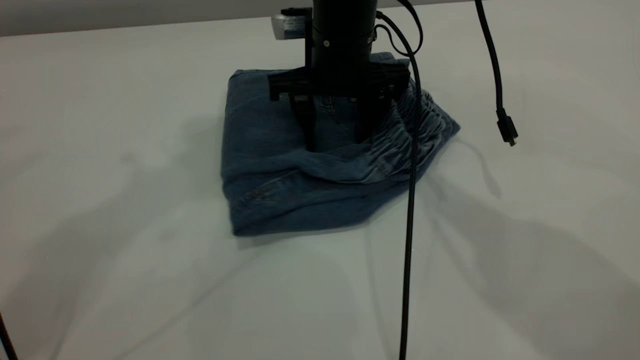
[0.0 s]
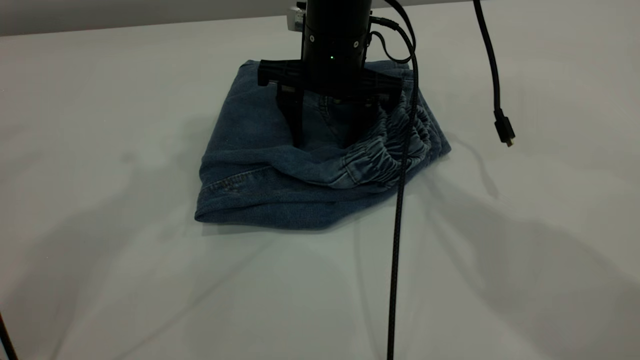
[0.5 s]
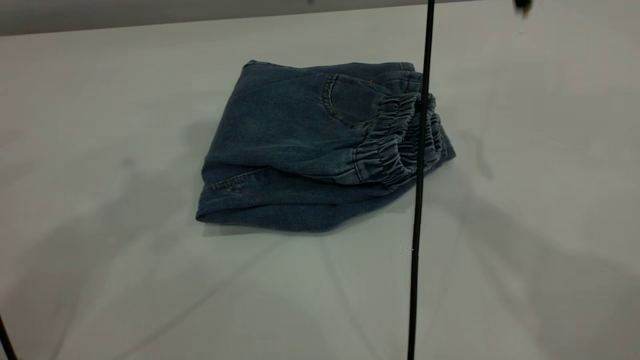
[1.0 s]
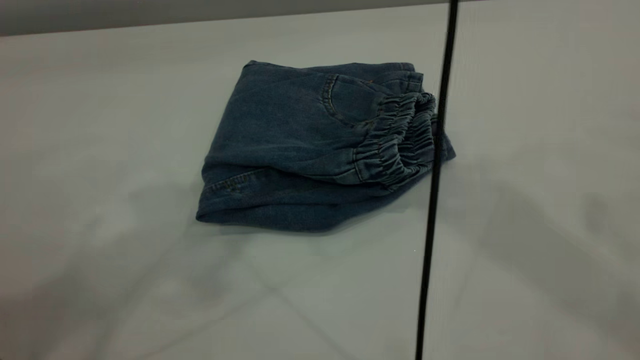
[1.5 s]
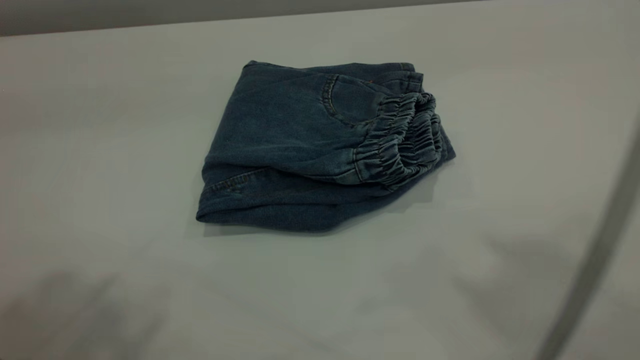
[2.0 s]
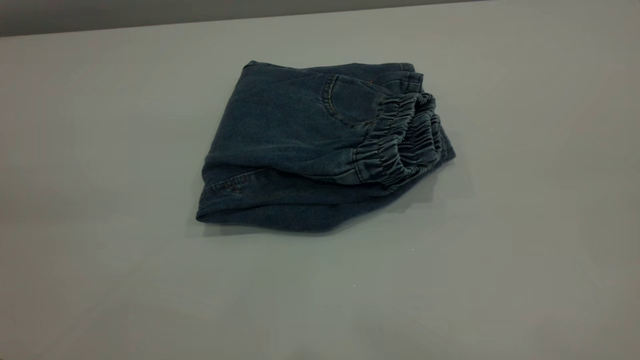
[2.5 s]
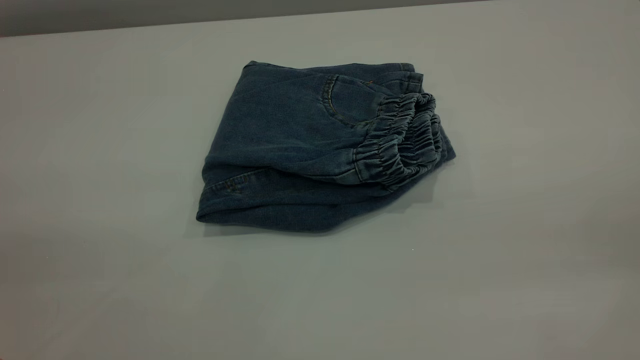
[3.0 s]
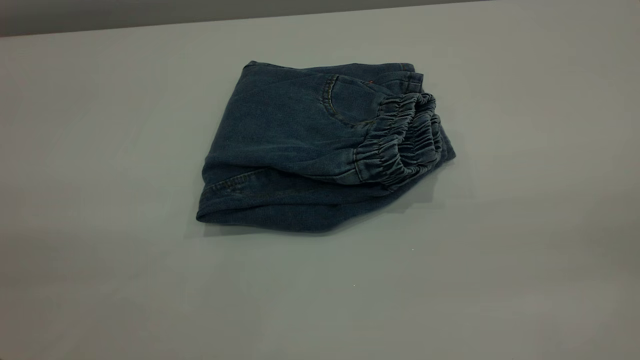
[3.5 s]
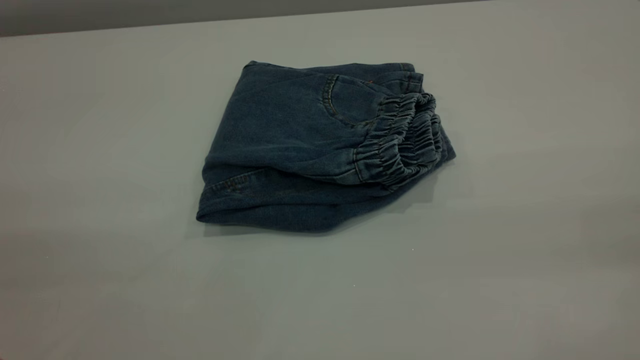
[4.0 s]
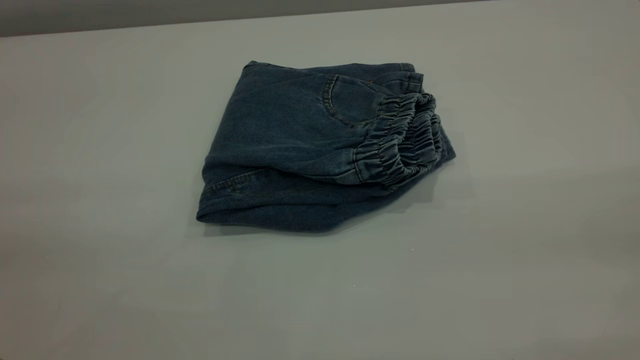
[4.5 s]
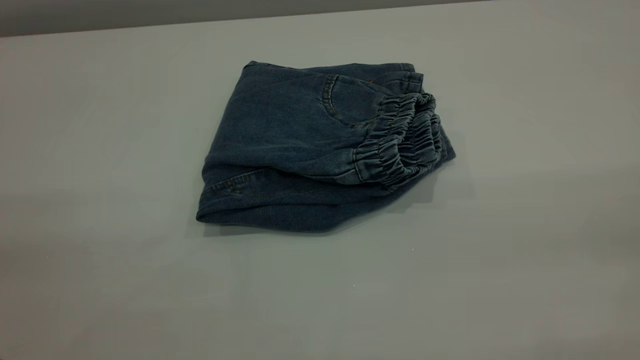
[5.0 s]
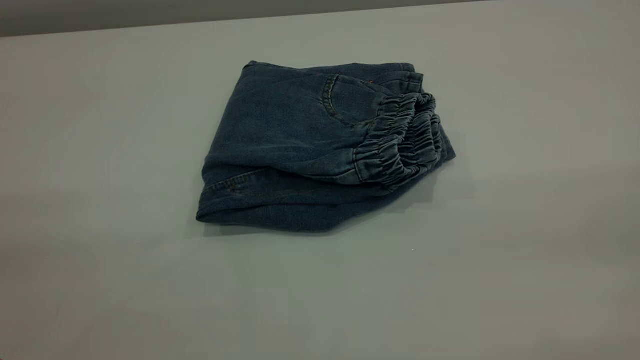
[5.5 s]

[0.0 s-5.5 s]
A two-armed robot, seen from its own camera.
0.0 to 2.0 s: The right gripper travels upward, backward and to the right by roughly 50 cm; the left gripper travels backward by about 20 cm.
2.0 to 3.5 s: The right gripper travels downward, backward and to the right by roughly 25 cm.
